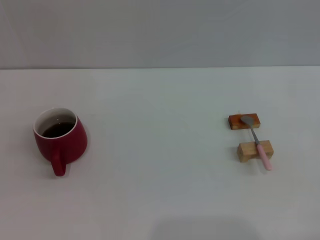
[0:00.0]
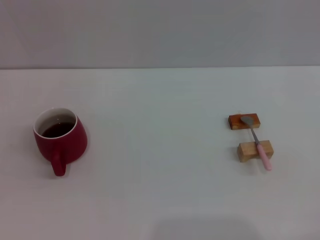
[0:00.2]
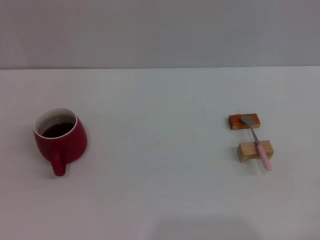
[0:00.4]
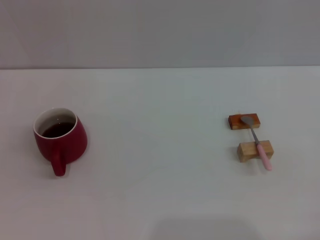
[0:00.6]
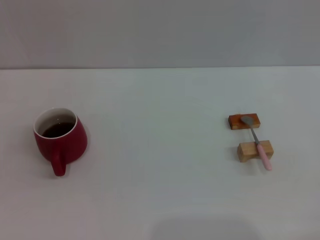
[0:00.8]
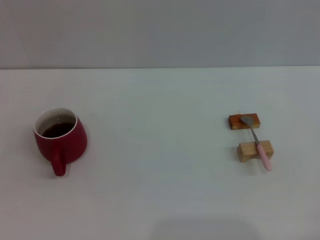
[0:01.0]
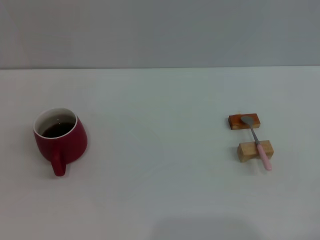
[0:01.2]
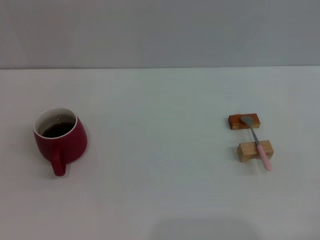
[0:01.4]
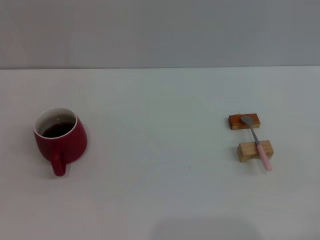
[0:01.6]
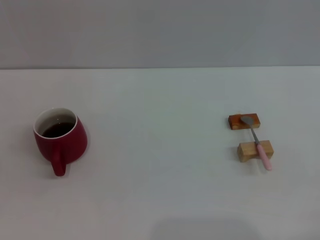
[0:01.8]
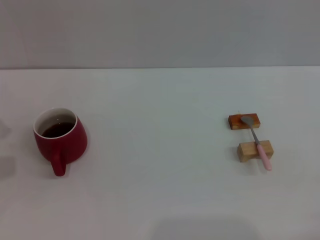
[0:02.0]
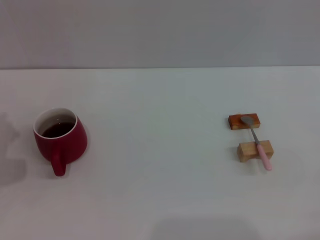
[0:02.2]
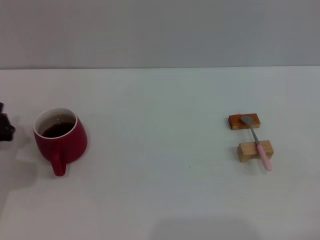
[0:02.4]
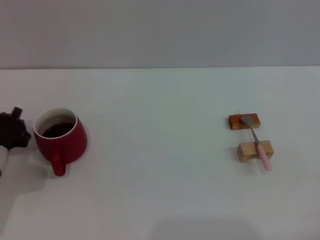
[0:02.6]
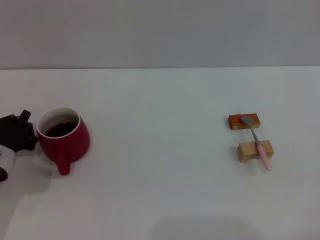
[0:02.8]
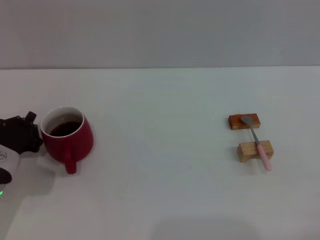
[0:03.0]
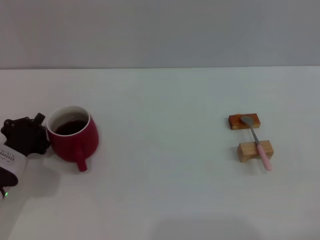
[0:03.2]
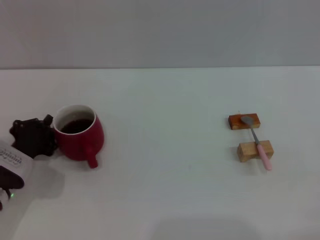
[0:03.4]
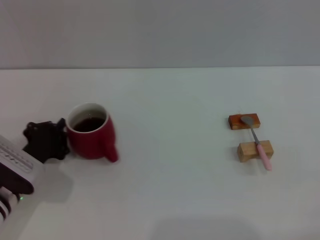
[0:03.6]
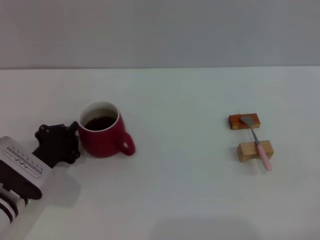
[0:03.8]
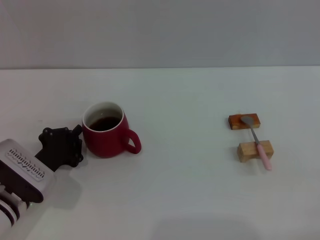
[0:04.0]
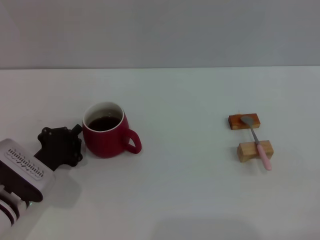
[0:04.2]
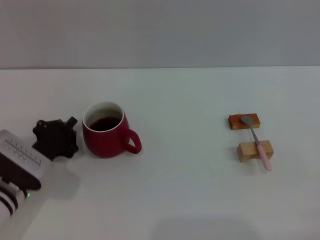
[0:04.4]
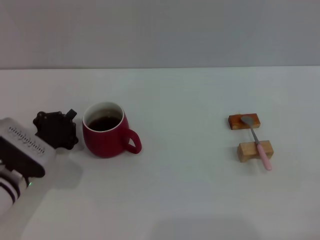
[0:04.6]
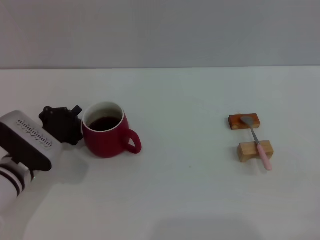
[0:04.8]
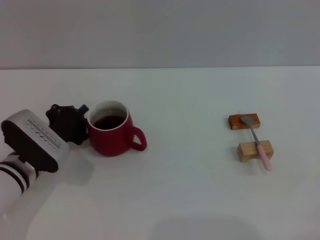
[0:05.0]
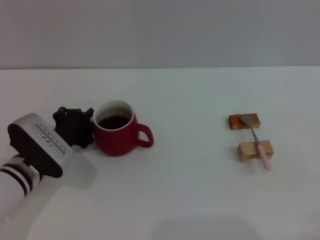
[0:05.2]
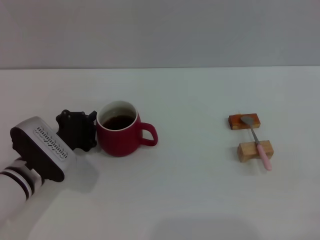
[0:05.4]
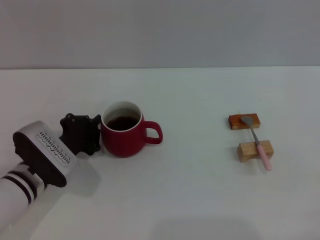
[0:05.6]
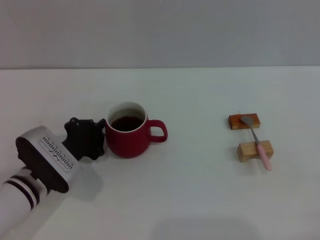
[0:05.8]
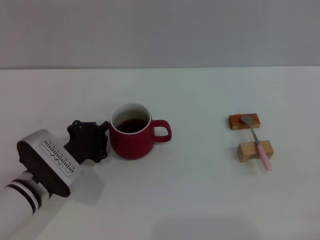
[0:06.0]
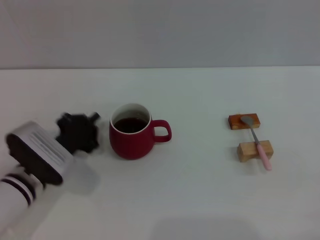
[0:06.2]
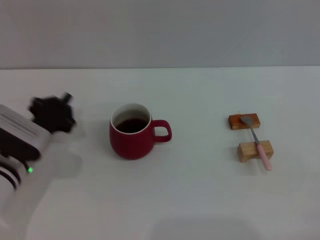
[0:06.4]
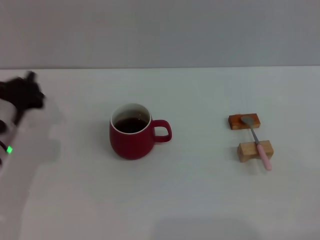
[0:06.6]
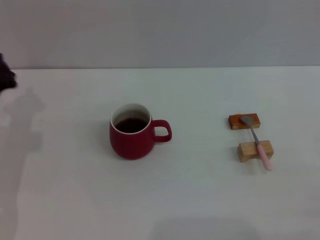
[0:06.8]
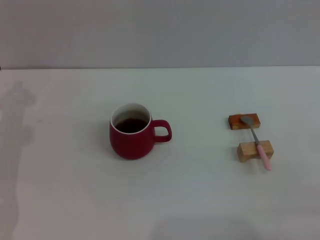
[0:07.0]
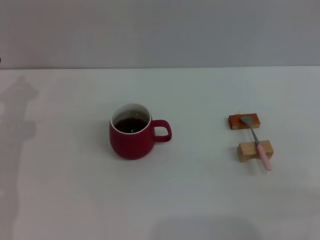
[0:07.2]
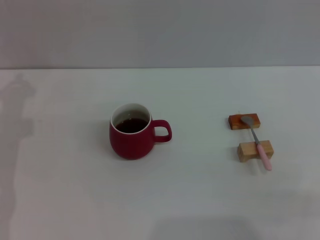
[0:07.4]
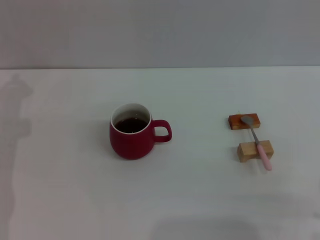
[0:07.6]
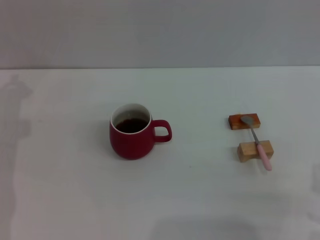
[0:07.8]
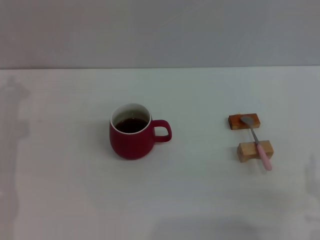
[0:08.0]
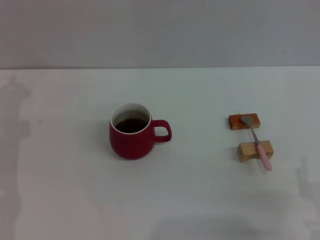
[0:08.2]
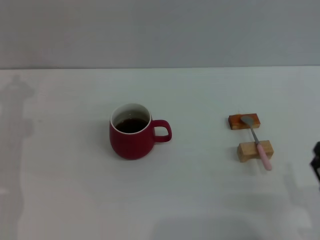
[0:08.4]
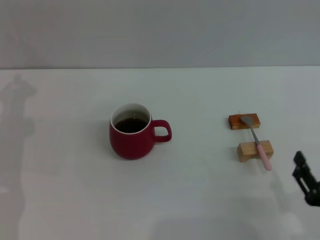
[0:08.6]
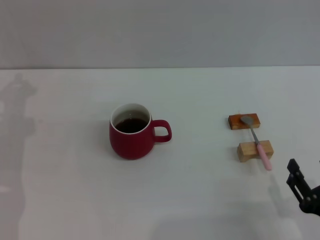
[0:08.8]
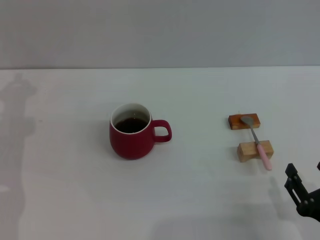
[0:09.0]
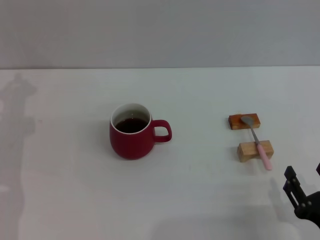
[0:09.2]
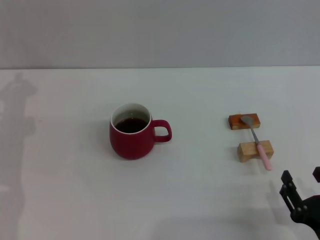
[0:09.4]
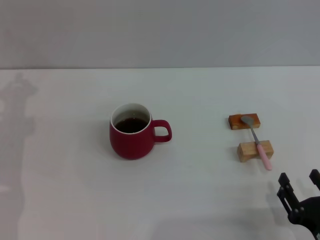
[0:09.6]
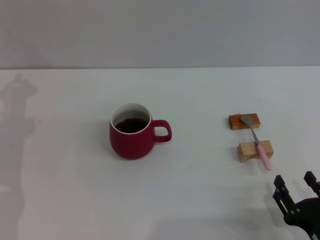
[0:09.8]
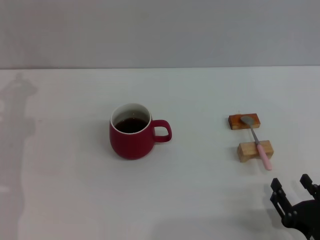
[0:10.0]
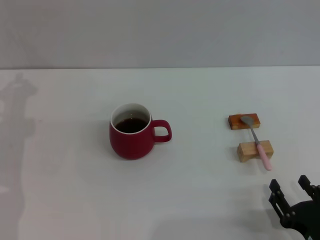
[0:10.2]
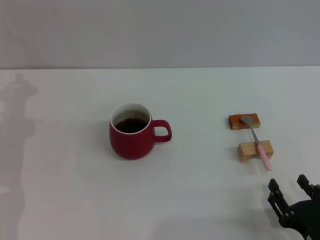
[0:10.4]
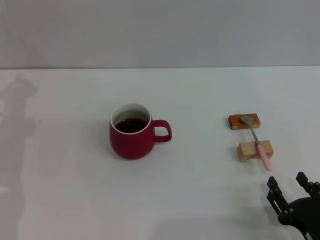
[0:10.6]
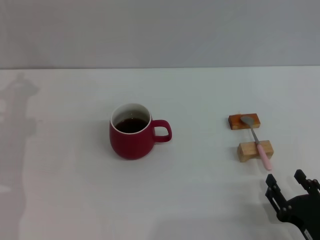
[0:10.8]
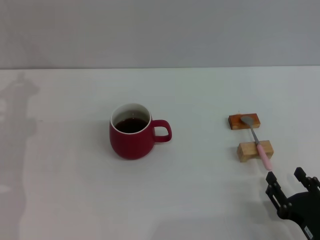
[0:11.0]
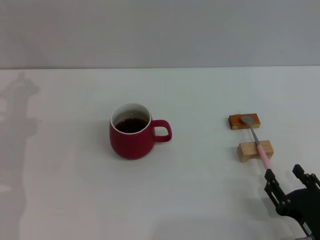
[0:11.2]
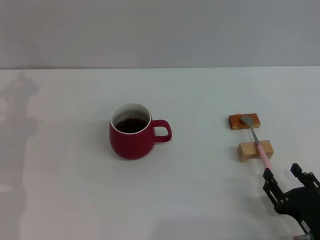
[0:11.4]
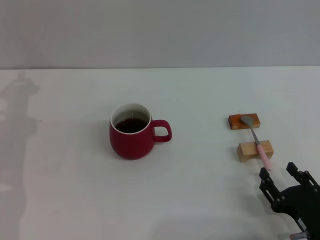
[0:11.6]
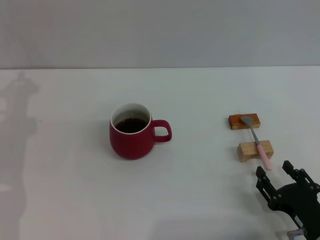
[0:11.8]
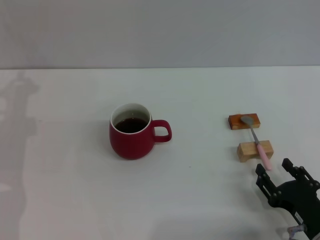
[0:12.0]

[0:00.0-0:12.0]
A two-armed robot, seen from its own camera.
Task of the whole recording: Move the red cup to the center, lift the pink spoon, stir it three times in the cup, and put the spoon into the cup.
Step, 0:00.0 to 0:06.2: Move the cup with coffee to the center of view with the left gripper.
0:01.6 to 0:03.0: The left gripper is displaced to the right by approximately 10 cm.
0:03.0 to 0:04.4: The grippers stay close to where they were, moving slightly.
0:04.4 to 0:06.0: The grippers stay close to where they were, moving slightly.
0:06.0 to 0:07.6: The left gripper is displaced to the left, upward and forward by about 15 cm.
0:09.0 to 0:10.4: The grippers stay close to where they were, moving slightly.
0:10.4 to 0:12.0: There are only small adjustments of the grippers.

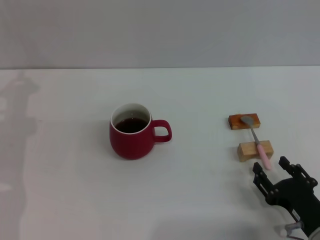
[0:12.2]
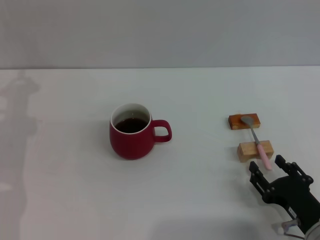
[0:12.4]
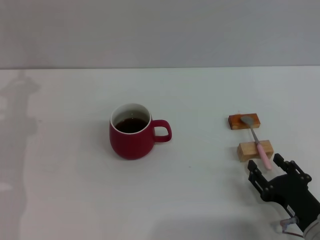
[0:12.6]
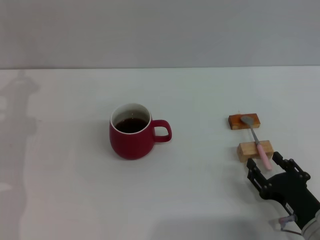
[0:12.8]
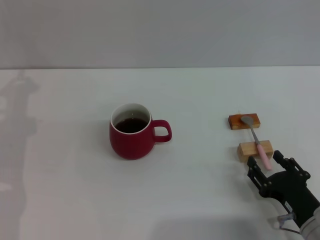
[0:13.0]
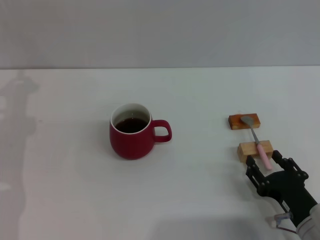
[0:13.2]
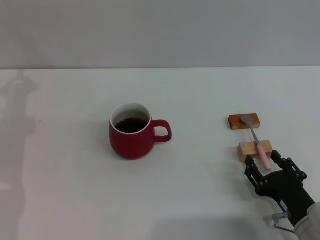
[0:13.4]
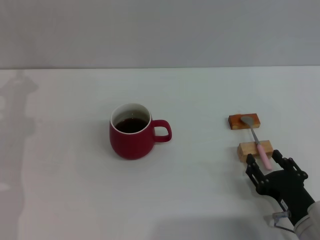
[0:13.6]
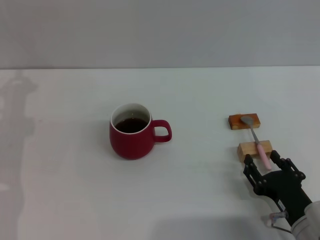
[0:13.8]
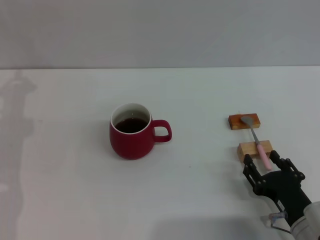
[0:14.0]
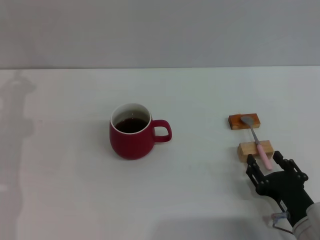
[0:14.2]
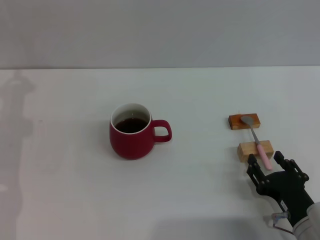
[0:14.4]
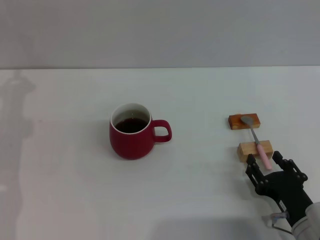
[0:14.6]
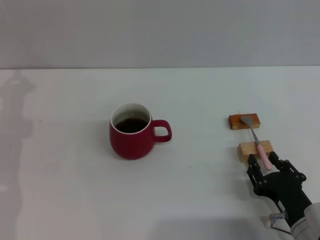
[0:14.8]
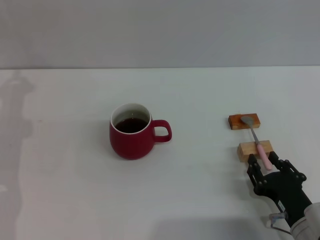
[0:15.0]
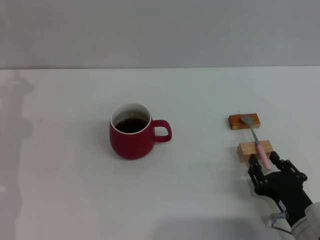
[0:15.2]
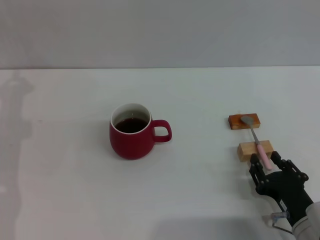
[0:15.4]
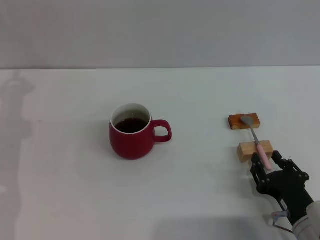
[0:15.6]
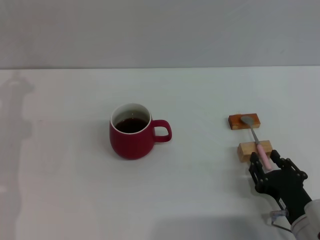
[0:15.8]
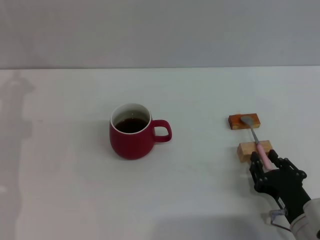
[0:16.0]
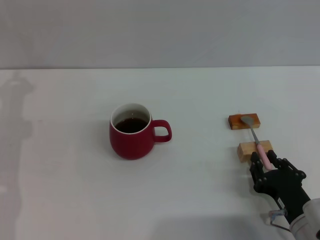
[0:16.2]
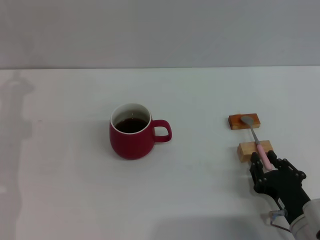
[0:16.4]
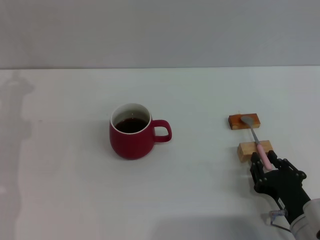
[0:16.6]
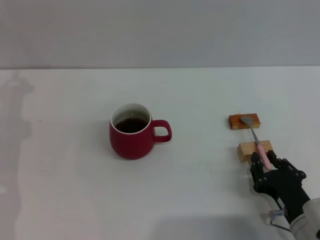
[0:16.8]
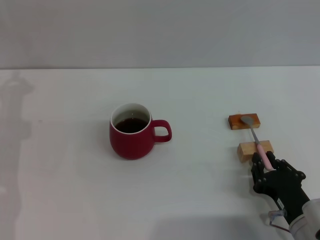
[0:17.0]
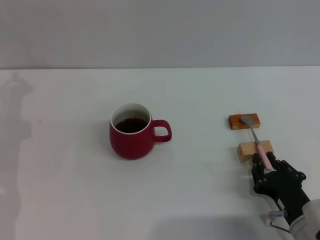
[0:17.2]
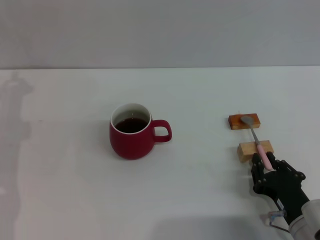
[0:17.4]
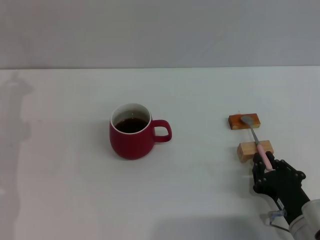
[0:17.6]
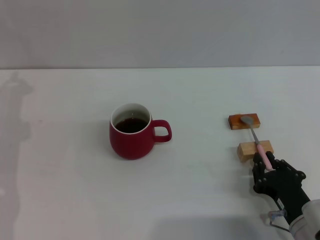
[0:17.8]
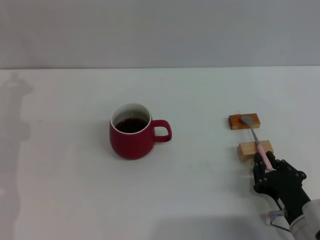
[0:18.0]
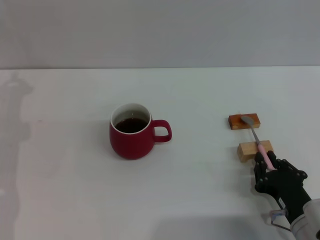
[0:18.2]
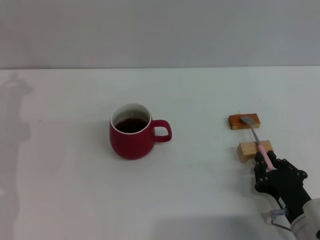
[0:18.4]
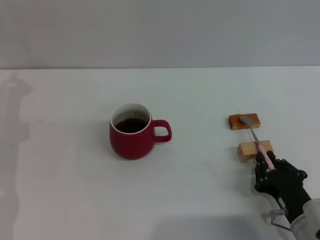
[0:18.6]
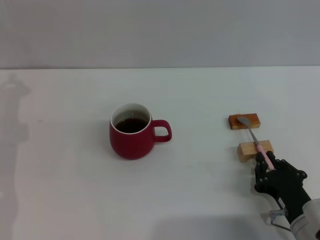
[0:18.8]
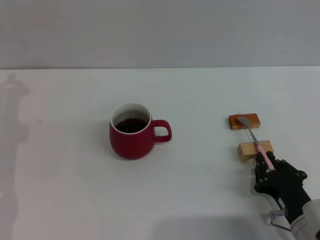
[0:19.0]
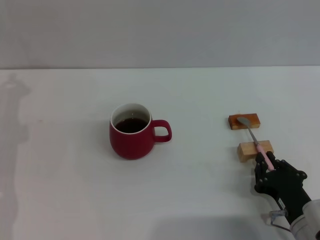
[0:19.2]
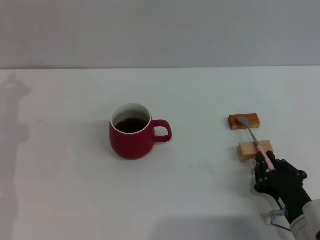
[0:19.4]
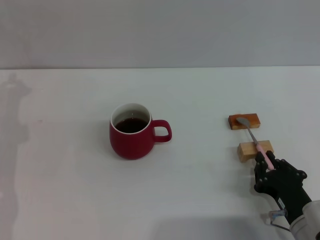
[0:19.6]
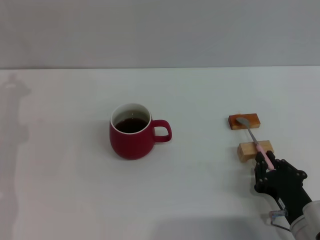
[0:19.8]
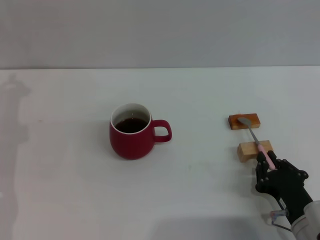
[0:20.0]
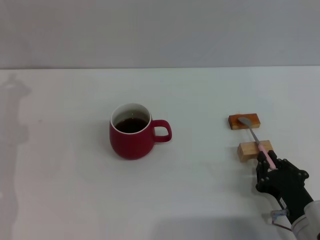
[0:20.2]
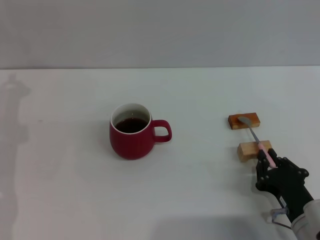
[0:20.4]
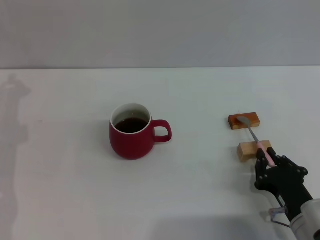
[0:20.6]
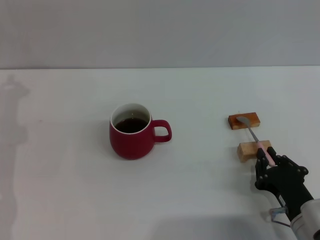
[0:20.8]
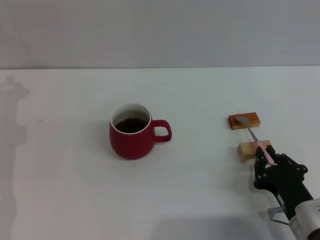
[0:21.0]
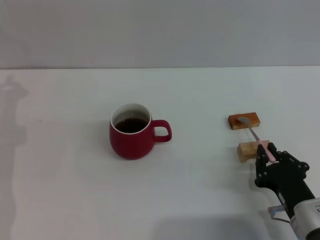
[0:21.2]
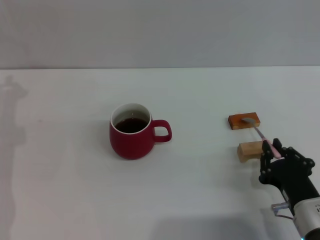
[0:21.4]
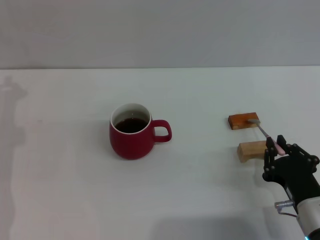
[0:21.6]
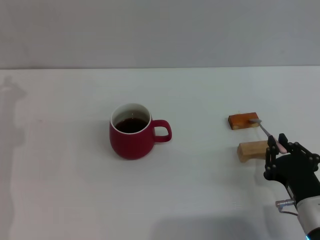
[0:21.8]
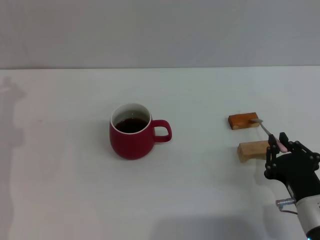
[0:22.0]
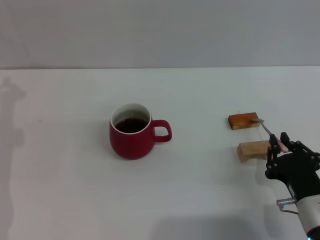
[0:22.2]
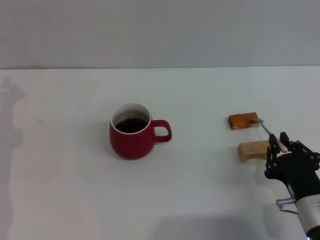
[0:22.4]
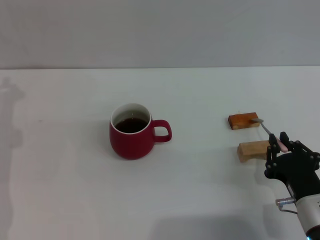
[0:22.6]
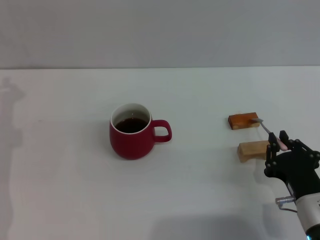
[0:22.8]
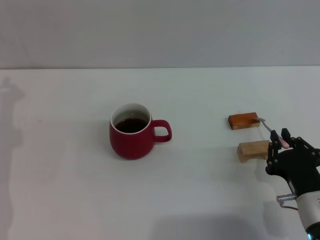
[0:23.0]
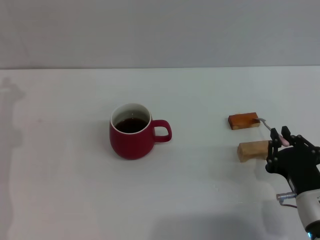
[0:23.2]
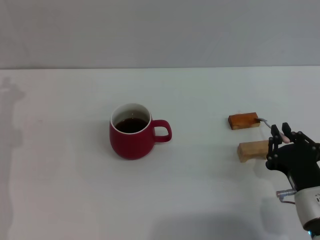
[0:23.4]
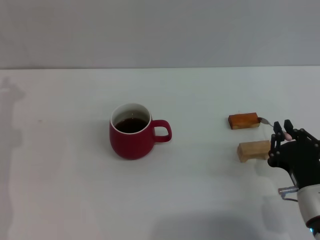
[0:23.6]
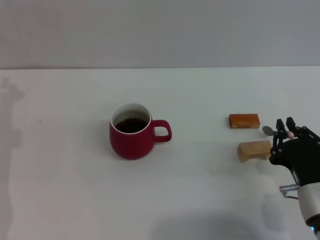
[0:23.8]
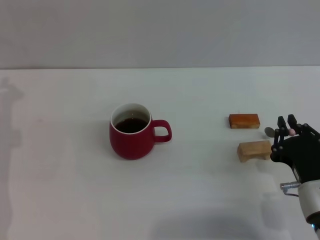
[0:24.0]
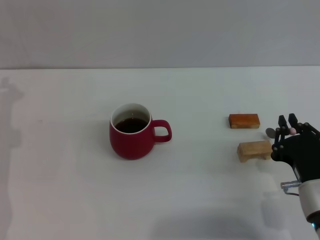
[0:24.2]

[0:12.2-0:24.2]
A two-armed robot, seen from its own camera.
Task of the whole recording: Move the red cup to the center, lift the pink spoon, stir it three times in the cup, and put the spoon into the cup.
0:12.2 to 0:13.8: The grippers make only small movements.
0:13.8 to 0:18.2: Both grippers stay put.
0:18.2 to 0:19.8: The two grippers keep their place.
0:19.8 to 0:24.2: The grippers stay close to where they were, moving slightly.
